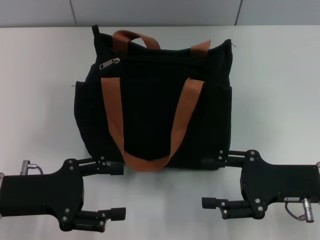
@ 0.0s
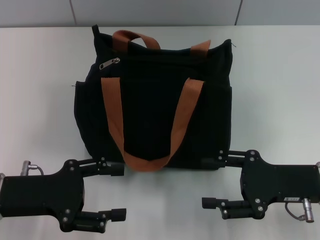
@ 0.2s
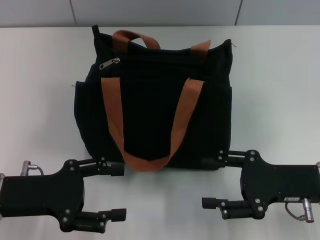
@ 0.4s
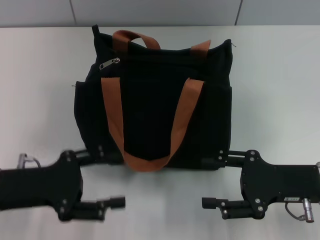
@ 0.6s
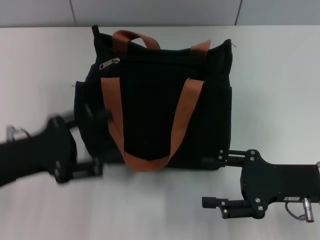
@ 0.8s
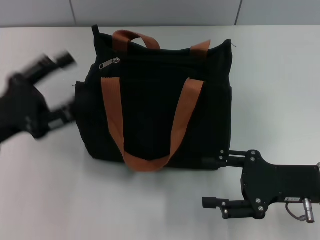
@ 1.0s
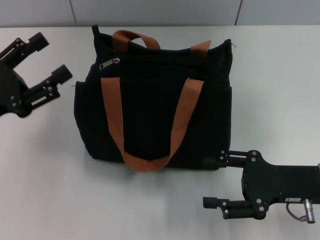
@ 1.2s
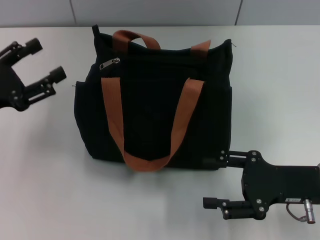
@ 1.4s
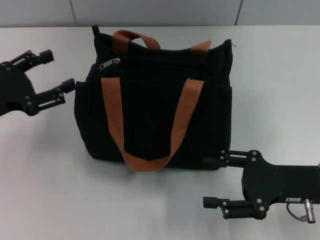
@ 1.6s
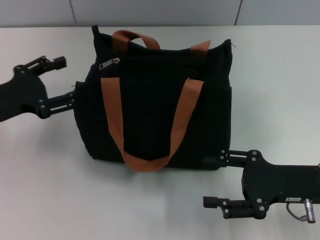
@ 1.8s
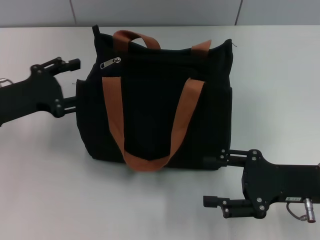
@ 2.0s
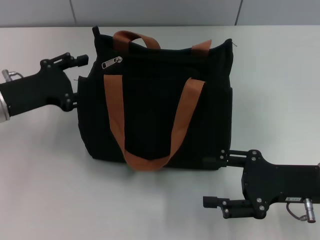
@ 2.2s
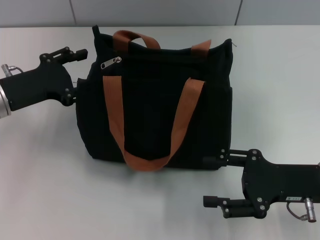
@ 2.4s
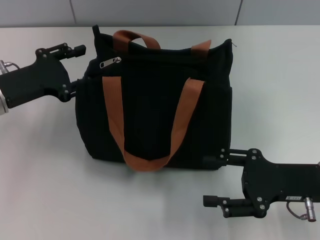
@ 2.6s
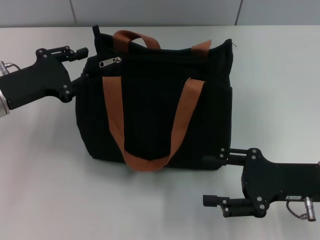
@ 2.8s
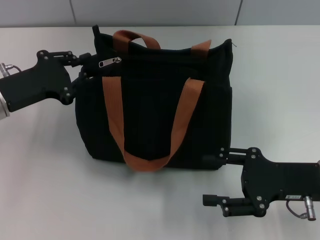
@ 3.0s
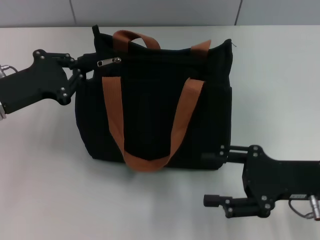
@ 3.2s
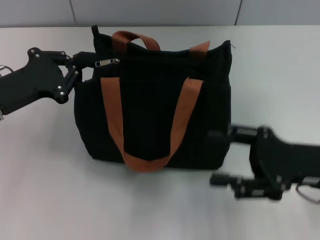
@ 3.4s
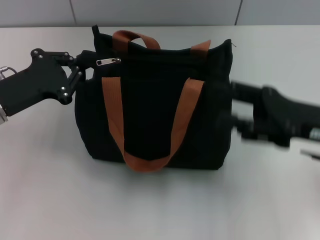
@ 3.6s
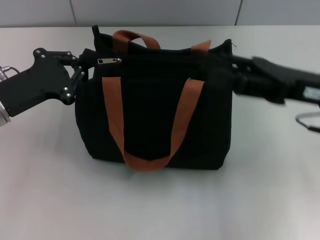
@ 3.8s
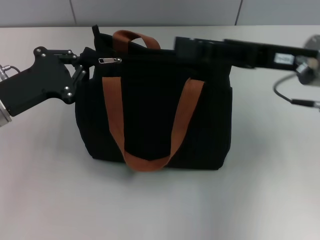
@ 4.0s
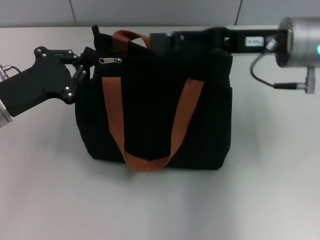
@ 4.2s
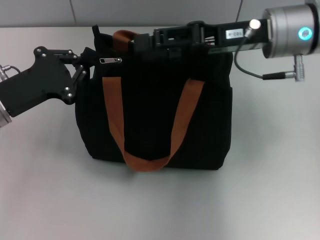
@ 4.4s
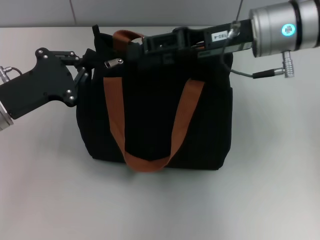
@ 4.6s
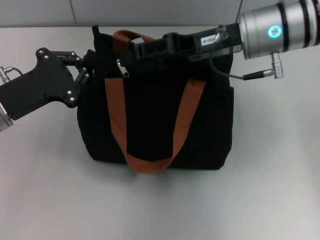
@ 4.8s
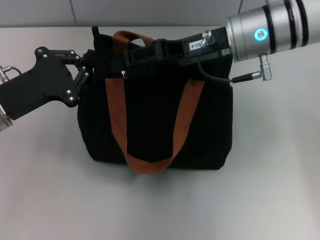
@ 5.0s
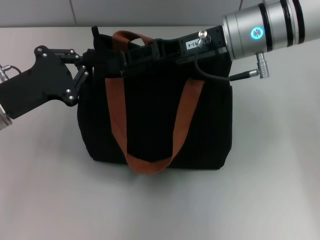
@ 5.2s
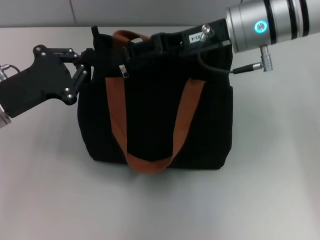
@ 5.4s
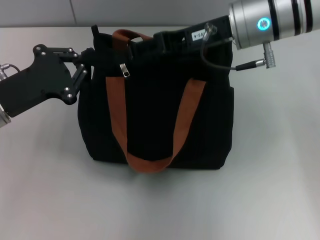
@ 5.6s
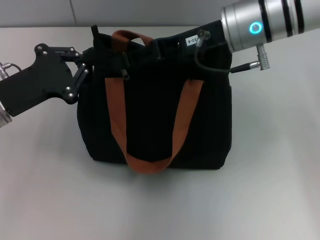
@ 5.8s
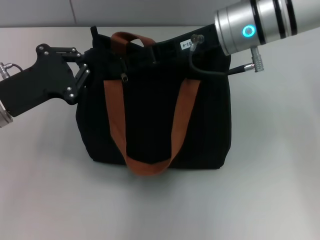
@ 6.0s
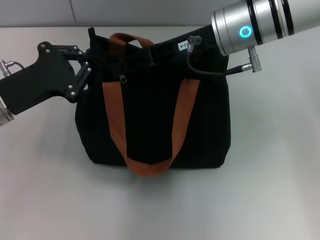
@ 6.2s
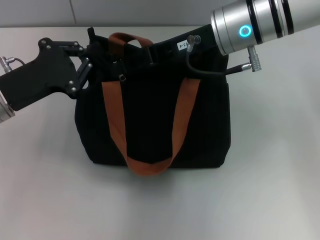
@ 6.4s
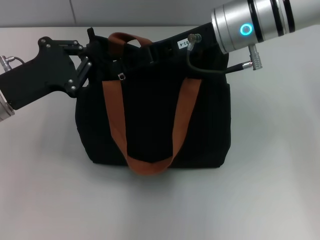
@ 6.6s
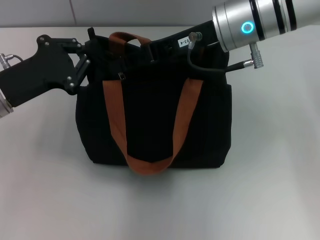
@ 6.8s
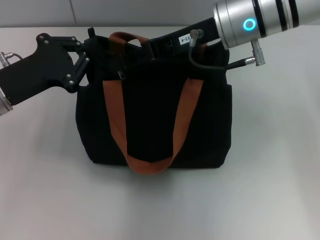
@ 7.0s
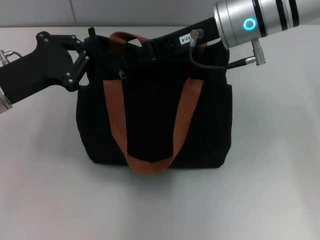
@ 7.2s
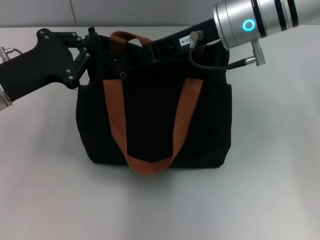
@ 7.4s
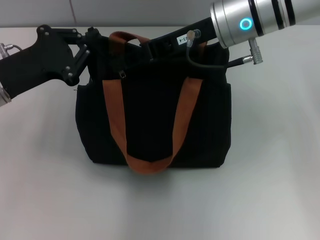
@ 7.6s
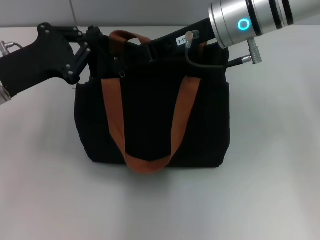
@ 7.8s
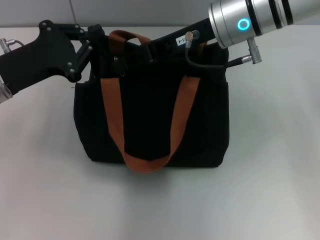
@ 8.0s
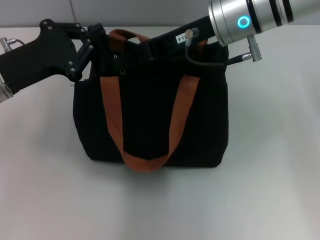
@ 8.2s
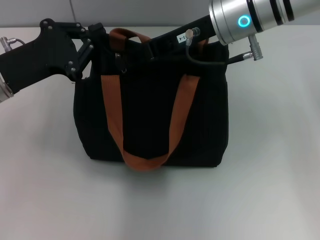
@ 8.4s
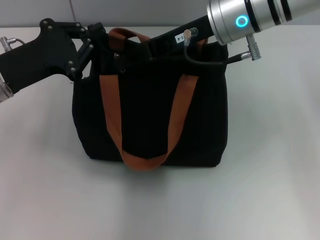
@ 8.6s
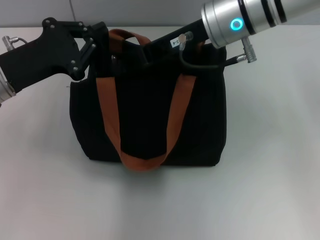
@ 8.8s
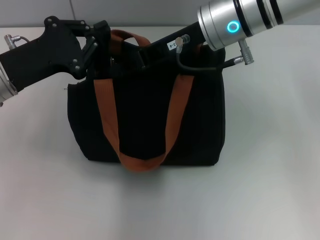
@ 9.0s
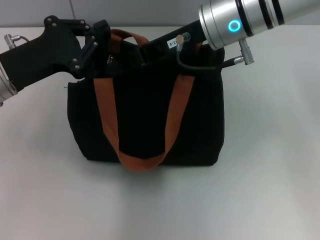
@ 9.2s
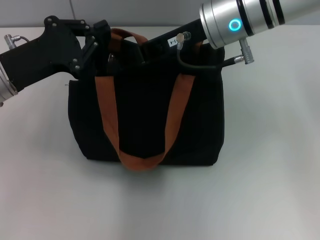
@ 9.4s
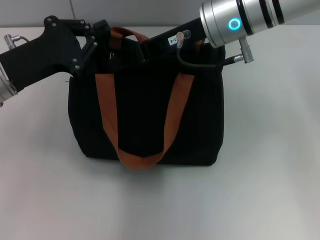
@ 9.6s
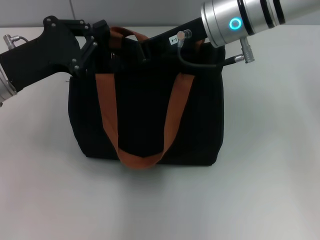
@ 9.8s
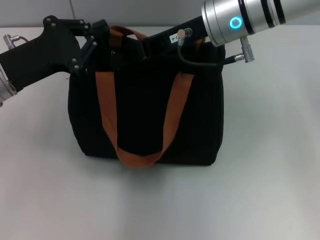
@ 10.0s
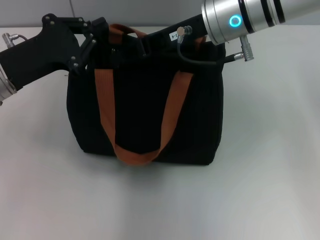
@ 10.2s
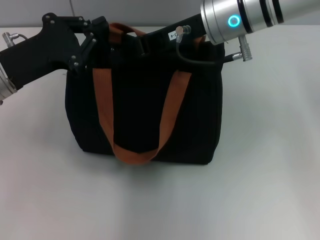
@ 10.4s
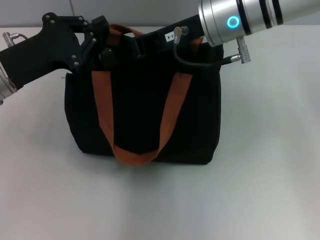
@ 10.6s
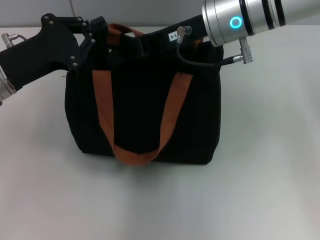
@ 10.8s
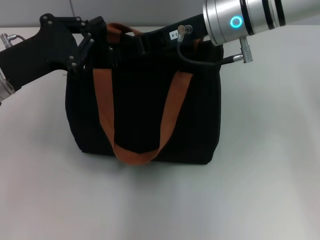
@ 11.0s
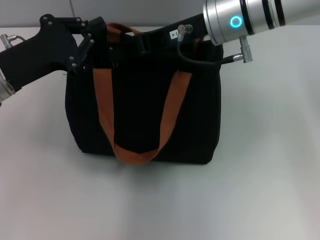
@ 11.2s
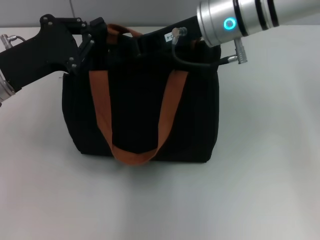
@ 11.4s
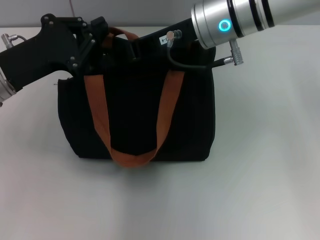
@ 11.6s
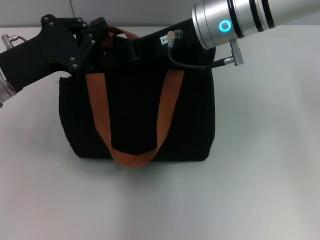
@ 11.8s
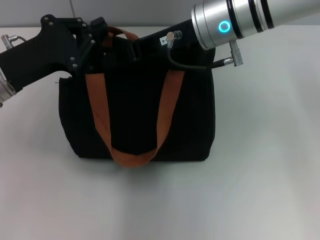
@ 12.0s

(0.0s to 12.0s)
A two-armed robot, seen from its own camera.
0.0s - 1.6s: The left gripper heads forward and to the left, covering some 10 cm.
1.6s - 3.0s: The left gripper changes place by approximately 5 cm, and closes.
3.0s - 4.4s: The left gripper closes up; the right gripper moves forward, upward and to the left, approximately 20 cm.
4.4s - 6.0s: The right gripper moves to the left, approximately 5 cm.
6.0s - 7.6s: The right gripper closes its fingers.
7.6s - 10.4s: The grippers make only small movements.
10.4s - 12.0s: The two grippers keep their place.

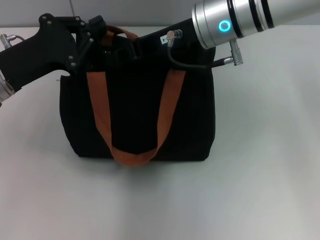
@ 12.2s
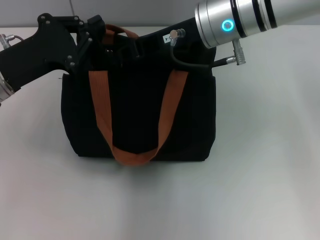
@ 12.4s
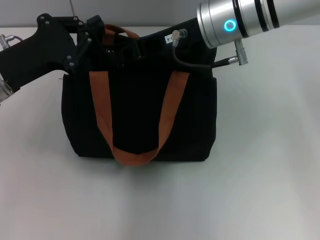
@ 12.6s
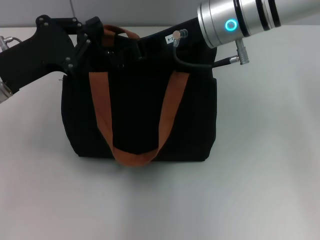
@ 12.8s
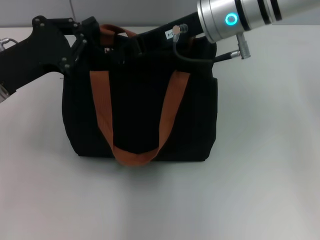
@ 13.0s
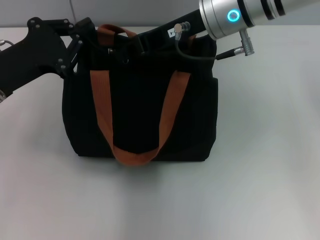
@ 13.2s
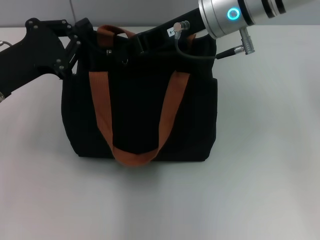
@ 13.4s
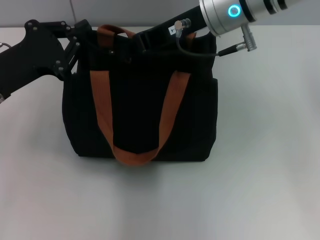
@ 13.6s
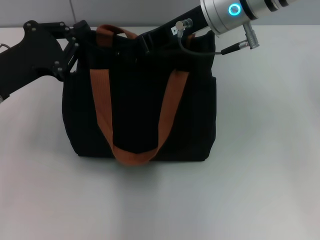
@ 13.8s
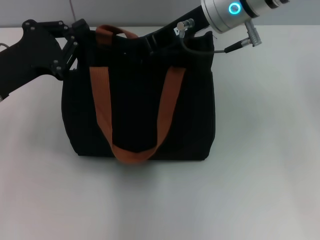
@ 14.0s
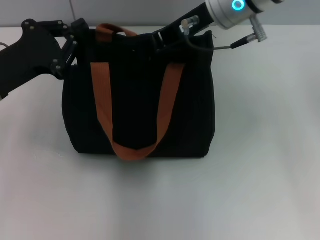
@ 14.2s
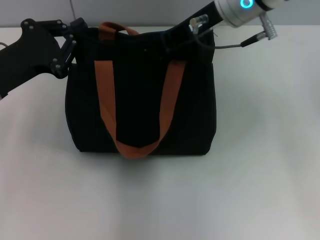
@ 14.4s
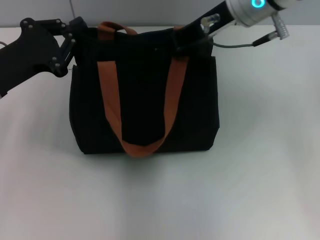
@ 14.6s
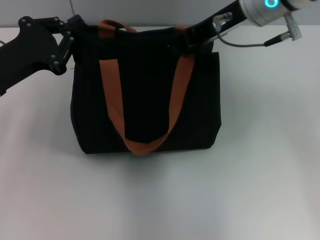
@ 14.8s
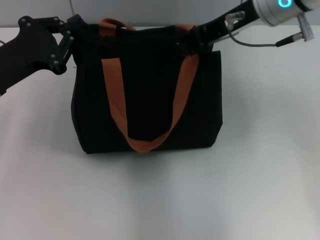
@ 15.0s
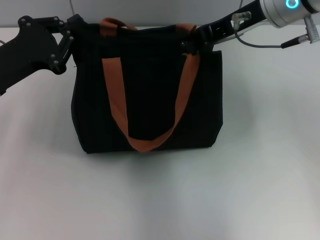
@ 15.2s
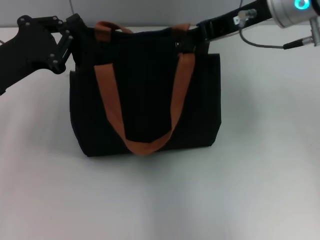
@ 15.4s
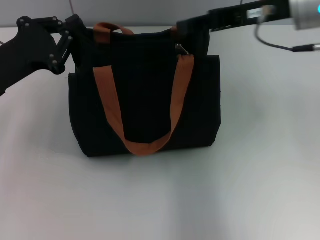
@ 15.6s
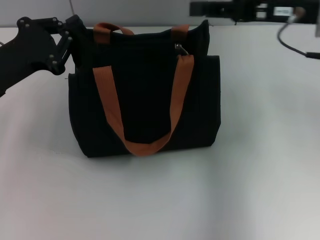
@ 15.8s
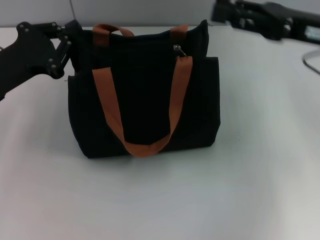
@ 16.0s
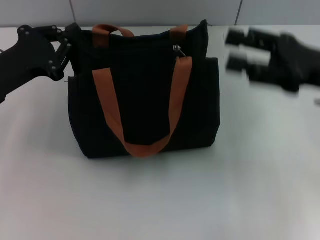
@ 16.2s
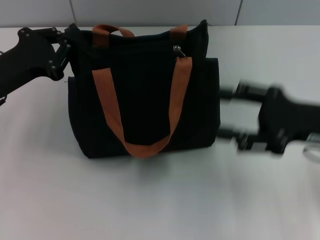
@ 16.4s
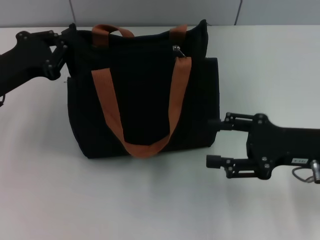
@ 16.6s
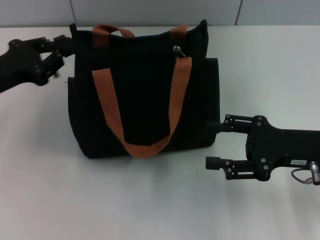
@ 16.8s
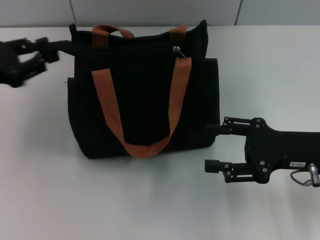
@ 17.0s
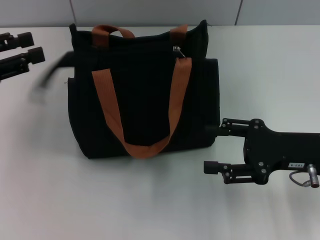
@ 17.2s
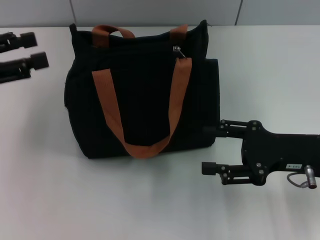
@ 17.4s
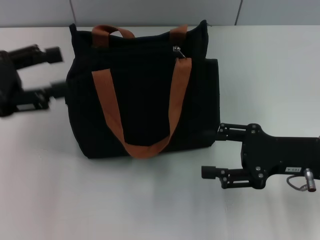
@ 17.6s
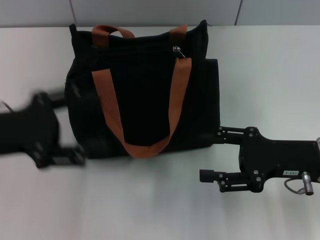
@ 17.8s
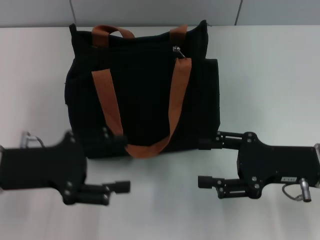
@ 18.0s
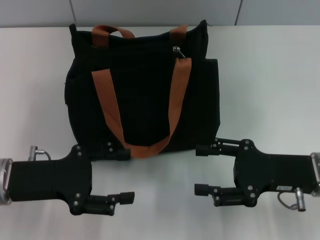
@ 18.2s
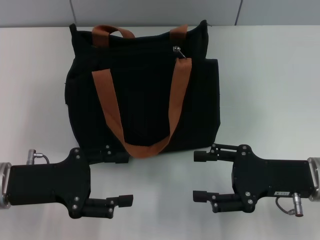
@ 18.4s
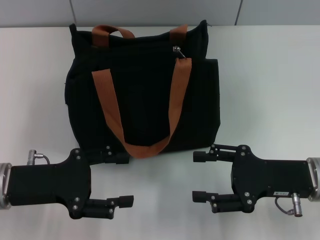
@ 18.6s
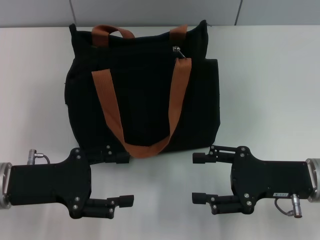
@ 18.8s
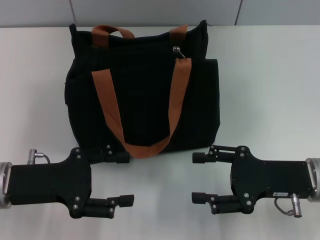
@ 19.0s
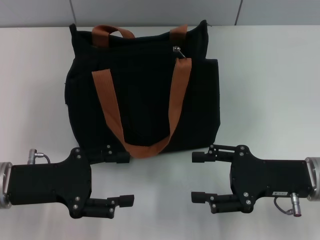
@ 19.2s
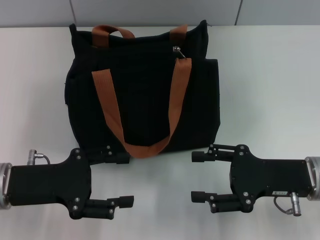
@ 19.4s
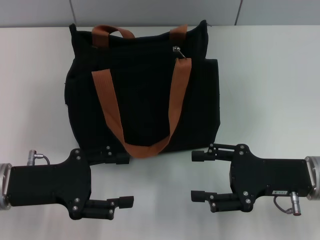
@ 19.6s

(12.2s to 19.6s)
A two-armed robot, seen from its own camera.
Step, 12.2s - 15.4s: Pull up the zipper with your right hand.
Step, 15.6s - 17.0s: Grab the zipper with your left hand.
12.2s - 13.6s: There are only small adjustments of the grippers.
13.6s - 15.2s: The right gripper goes approximately 5 cm to the right.
15.2s - 16.6s: The right gripper moves downward, backward and to the right, about 20 cm, and opens its fingers.
16.6s - 18.2s: The left gripper is displaced backward by some 10 cm, reaches some 5 cm to the left, then returns, and opens up.
18.2s - 19.6s: Neither gripper changes place.

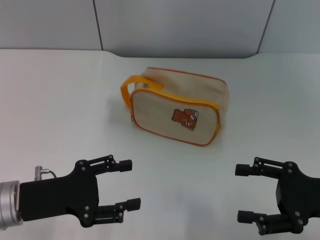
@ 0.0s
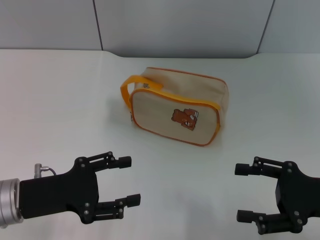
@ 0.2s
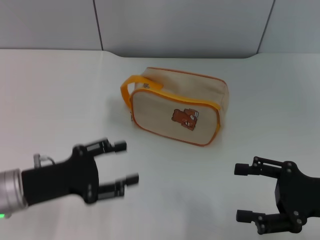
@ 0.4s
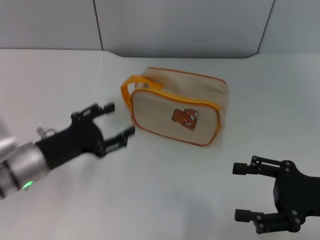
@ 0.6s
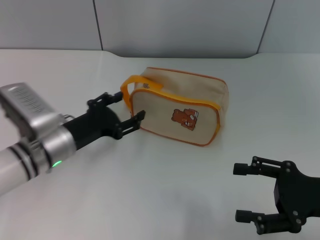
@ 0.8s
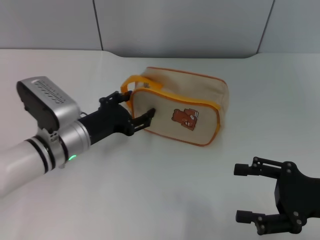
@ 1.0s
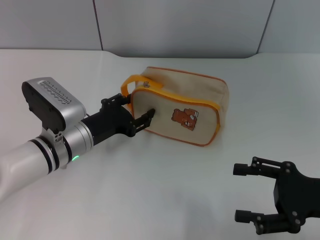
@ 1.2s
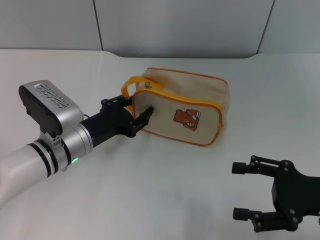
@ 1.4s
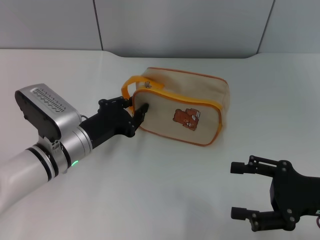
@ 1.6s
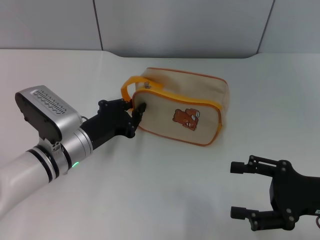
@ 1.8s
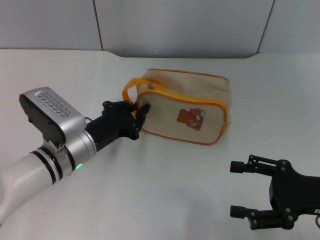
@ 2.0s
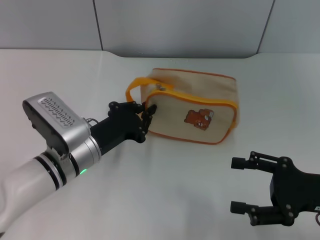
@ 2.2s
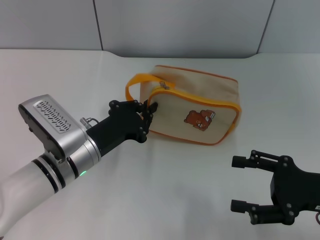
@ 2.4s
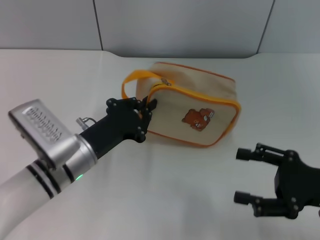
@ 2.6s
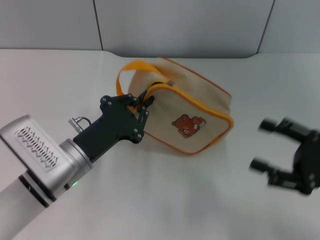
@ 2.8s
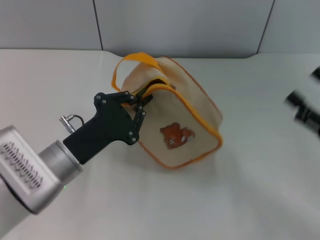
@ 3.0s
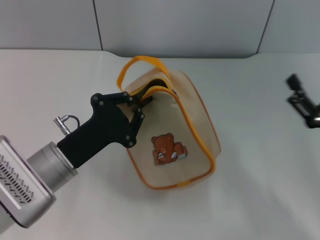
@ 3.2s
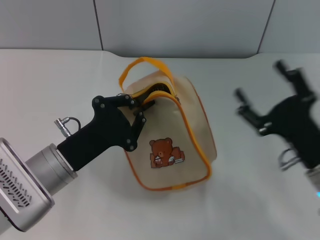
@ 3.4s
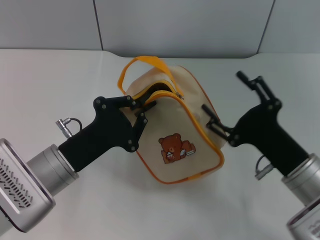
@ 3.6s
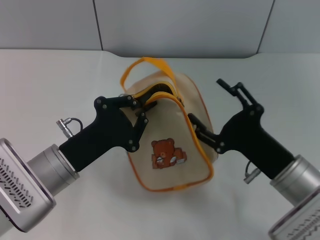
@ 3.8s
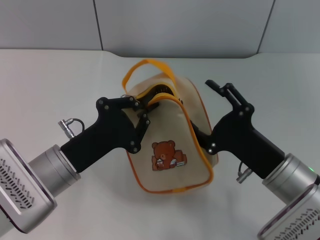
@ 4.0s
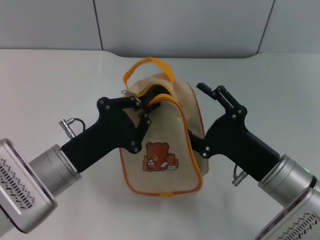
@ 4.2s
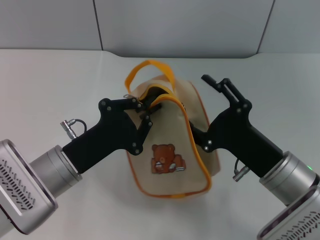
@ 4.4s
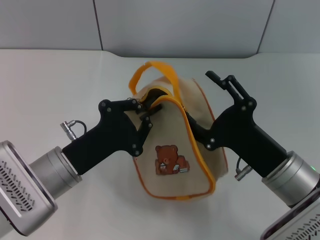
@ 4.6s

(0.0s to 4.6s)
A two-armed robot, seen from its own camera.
Step, 0.0s - 3.0s: Pick up the bag with left gripper.
0.0s - 1.6s: The left gripper moves forward and to the right, some 10 cm, and closes up.
1.6s - 3.0s: The left gripper shifts some 5 cm backward, and closes.
3.0s - 4.6s: The right gripper heads to the left, covering about 15 cm.
